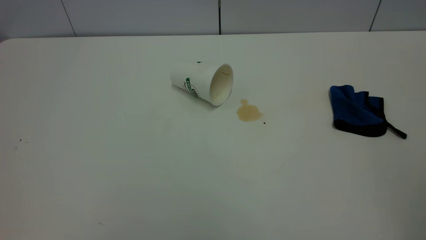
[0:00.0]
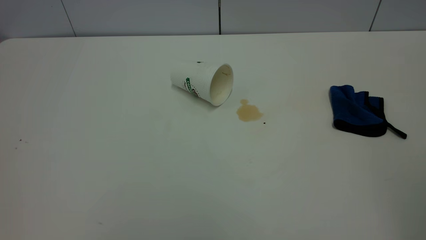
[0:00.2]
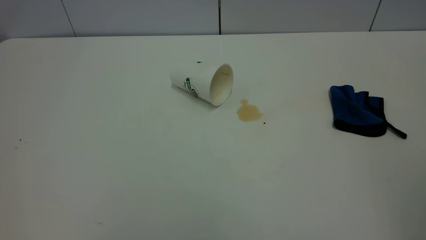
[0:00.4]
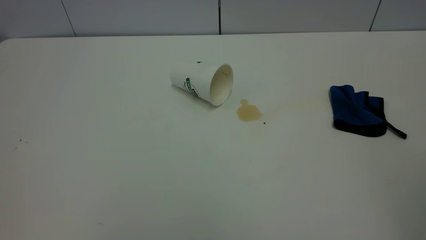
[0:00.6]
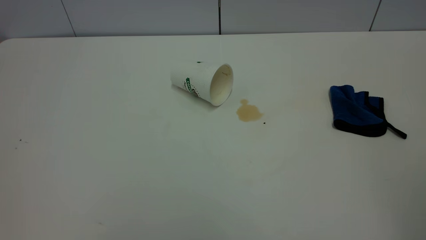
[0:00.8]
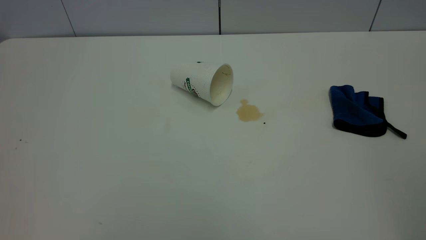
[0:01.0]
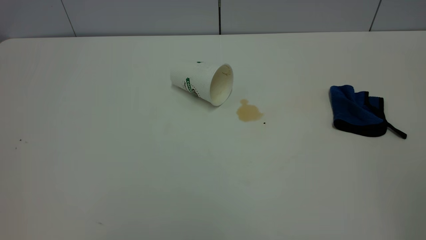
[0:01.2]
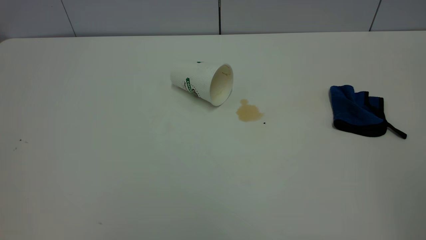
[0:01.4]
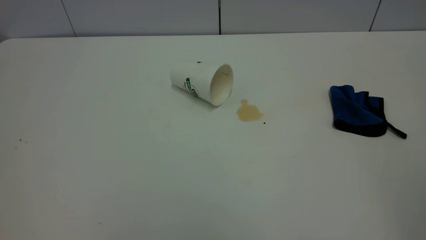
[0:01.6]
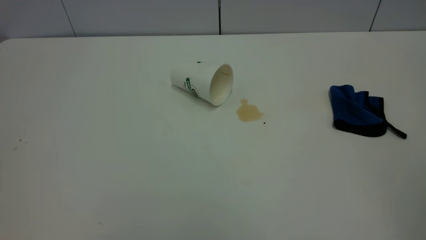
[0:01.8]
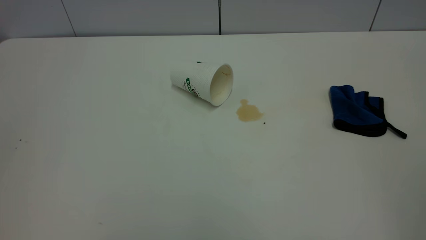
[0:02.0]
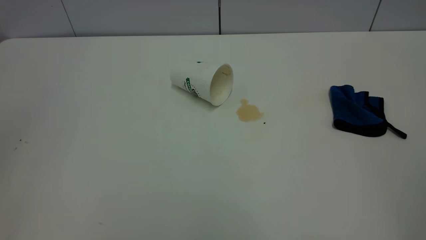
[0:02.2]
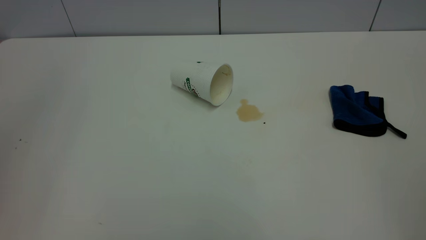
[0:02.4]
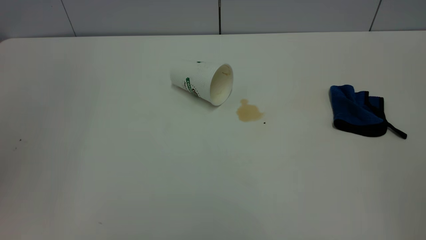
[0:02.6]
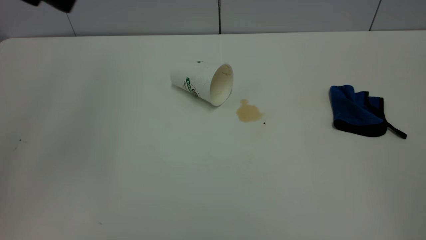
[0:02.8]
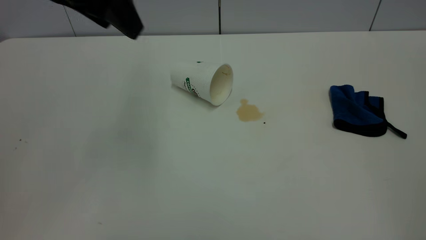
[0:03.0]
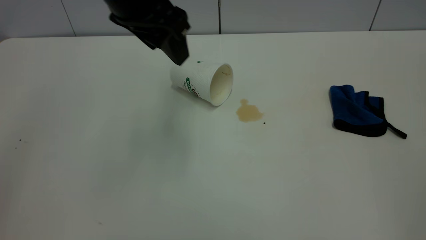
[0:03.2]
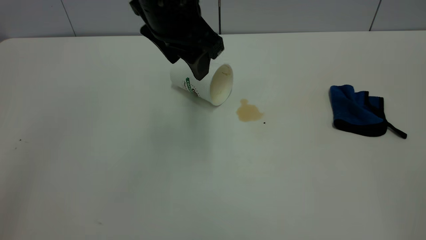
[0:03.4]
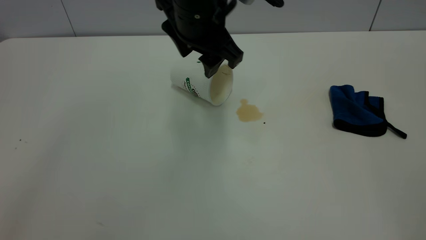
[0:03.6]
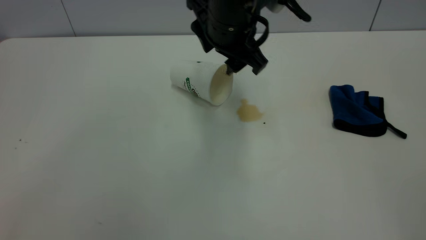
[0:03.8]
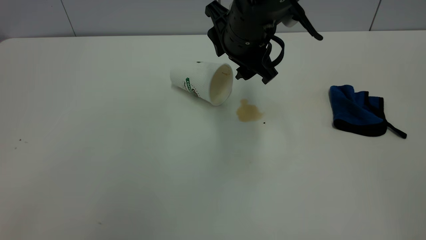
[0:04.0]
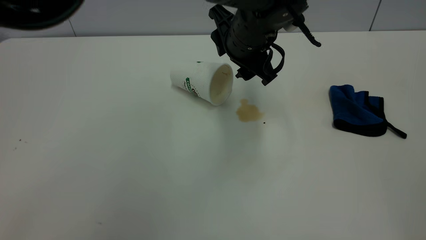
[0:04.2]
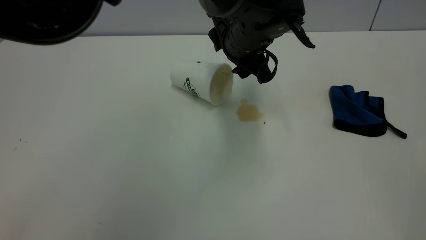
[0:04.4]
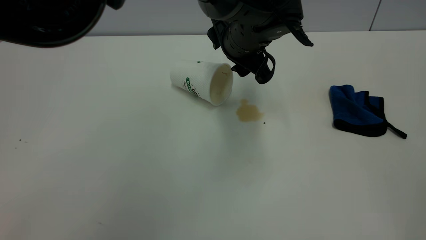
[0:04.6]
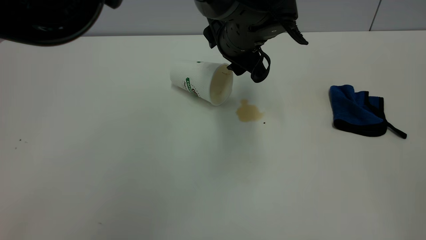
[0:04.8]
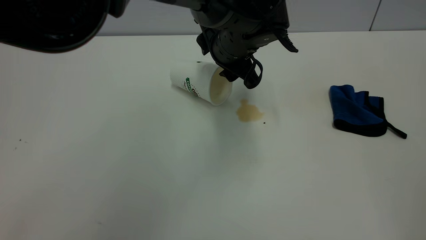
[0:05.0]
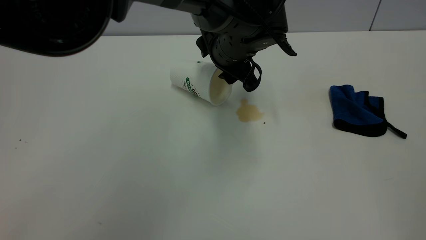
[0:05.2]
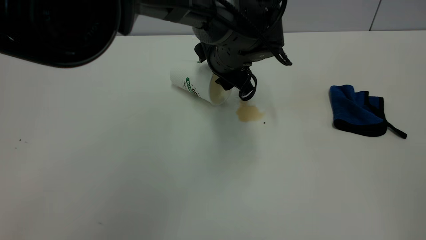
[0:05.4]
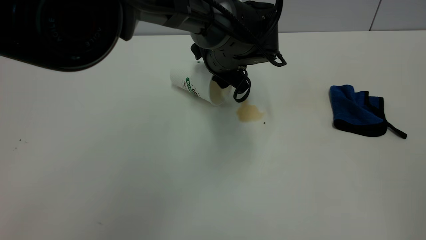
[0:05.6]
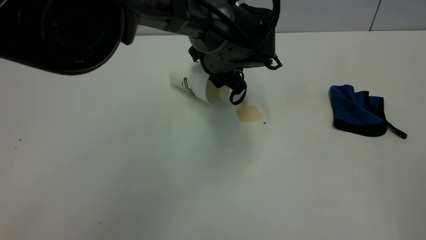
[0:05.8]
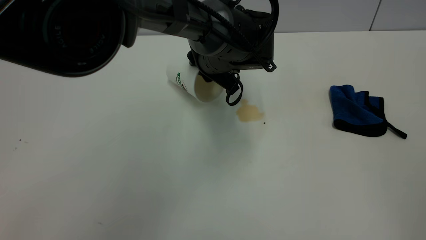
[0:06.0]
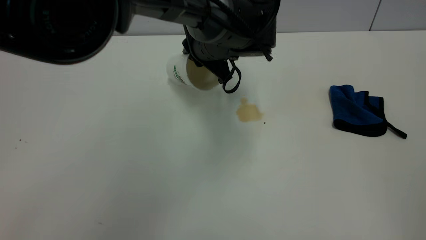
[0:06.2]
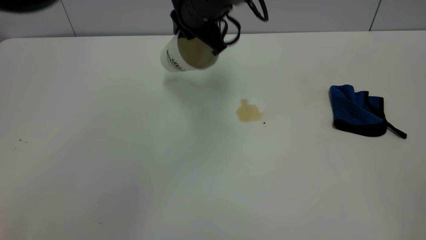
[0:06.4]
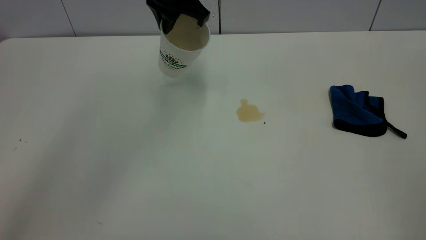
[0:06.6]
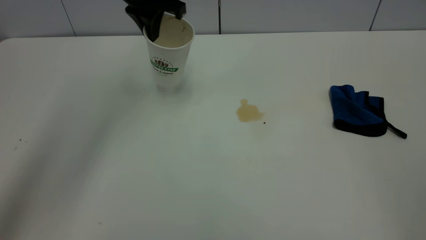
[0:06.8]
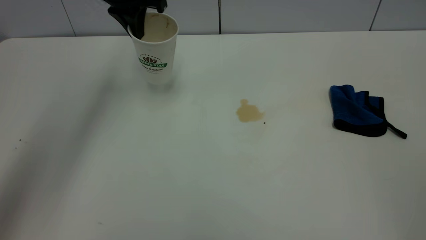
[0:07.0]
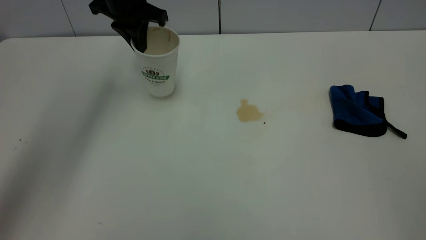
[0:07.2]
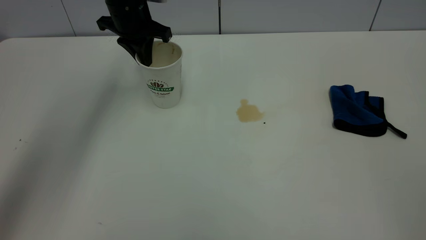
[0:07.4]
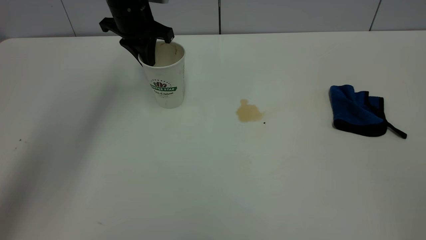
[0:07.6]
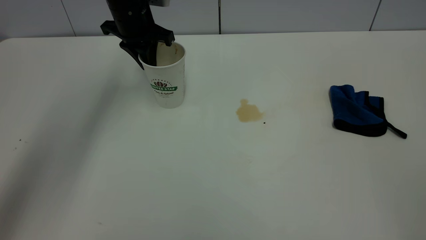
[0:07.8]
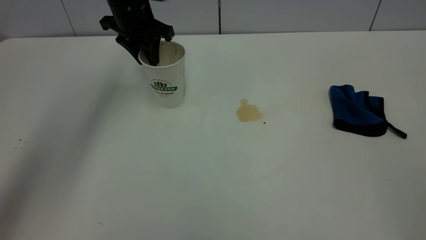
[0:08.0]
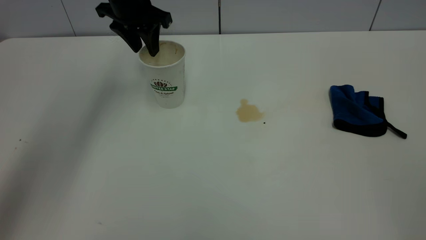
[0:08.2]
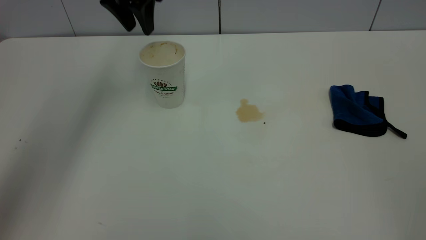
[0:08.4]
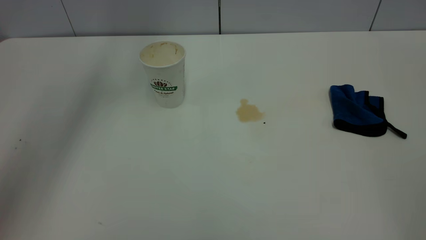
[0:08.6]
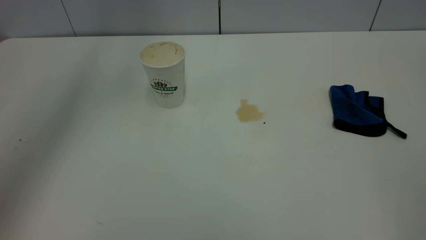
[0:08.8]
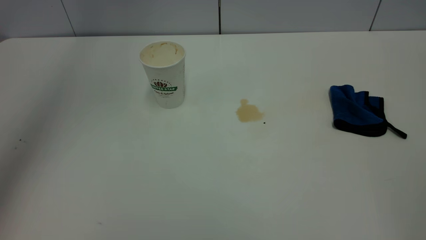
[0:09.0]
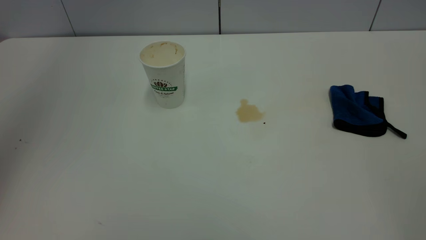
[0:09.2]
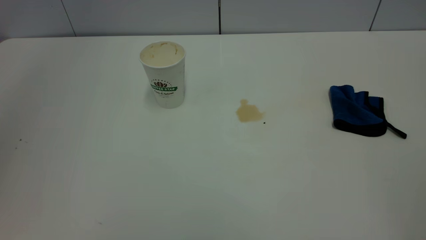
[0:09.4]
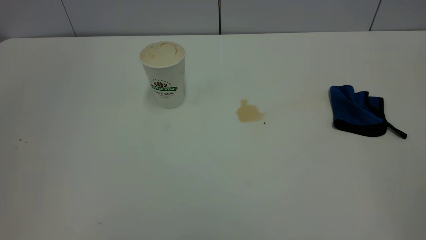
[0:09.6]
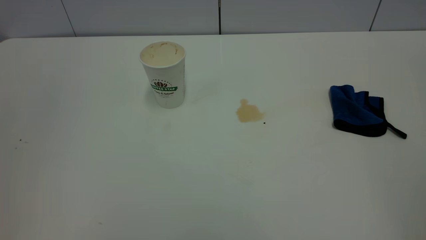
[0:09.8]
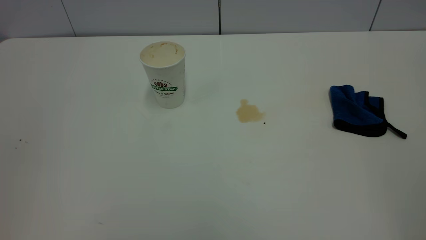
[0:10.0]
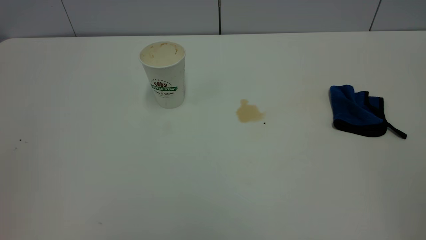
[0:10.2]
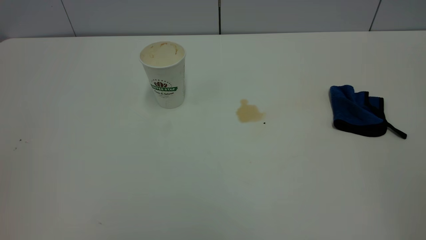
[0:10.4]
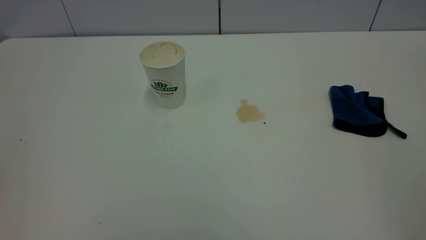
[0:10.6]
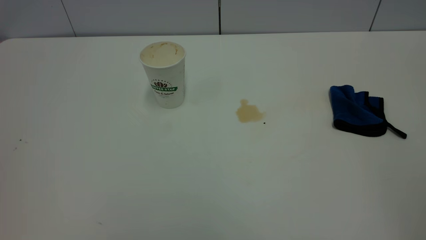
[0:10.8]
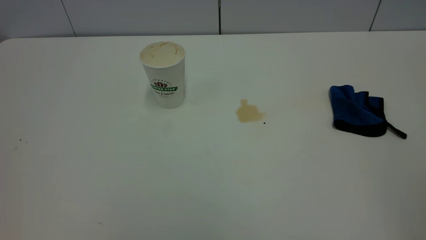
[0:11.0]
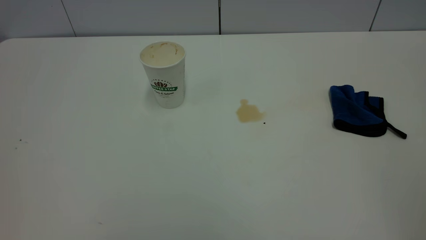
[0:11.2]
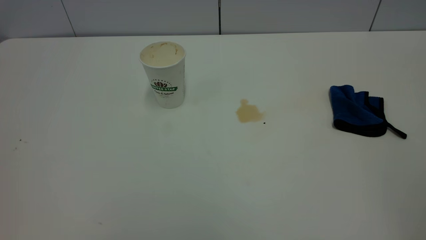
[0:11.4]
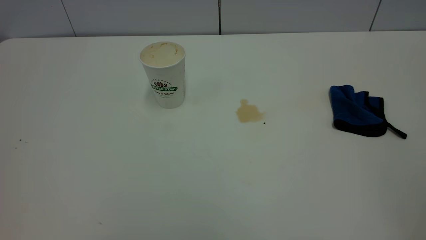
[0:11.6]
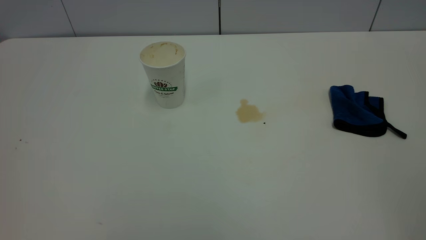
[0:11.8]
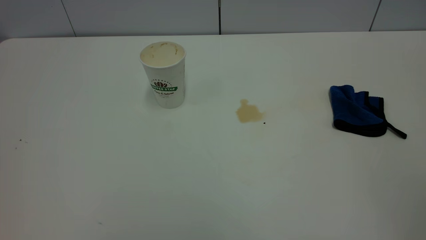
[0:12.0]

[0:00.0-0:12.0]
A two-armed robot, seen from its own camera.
Task of the whole recording: the left gripper pick up the fallen cup and place it upright, the right gripper grasp the blue rag and wipe the tea stain on the table, the right gripper put the blue rag back in its original position.
Step, 0:00.0 to 0:08.2: Stand the paper cup upright.
0:00.0 to 0:01.6: Both grippers stay about where they are.
0:01.6 to 0:03.0: The left gripper moves forward and to the right, roughly 35 cm.
0:03.0 to 0:04.4: The left gripper goes roughly 25 cm to the right and downward.
0:04.4 to 0:06.0: The left gripper moves downward, some 5 cm, and closes its fingers.
0:06.0 to 0:07.6: The left gripper shifts some 20 cm to the left and forward.
0:07.6 to 0:09.0: The left gripper heads upward, covering some 35 cm, and opens.
0:09.0 to 0:10.4: The left gripper goes approximately 40 cm backward and downward.

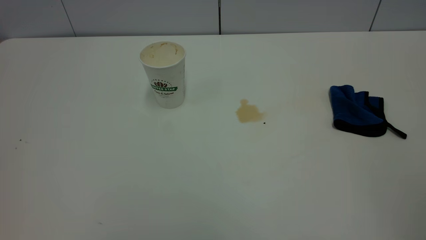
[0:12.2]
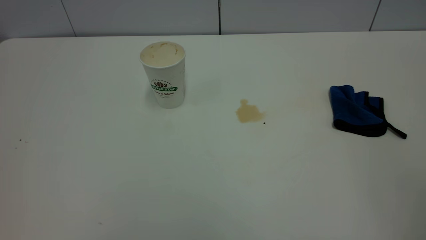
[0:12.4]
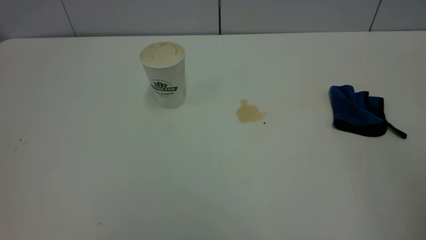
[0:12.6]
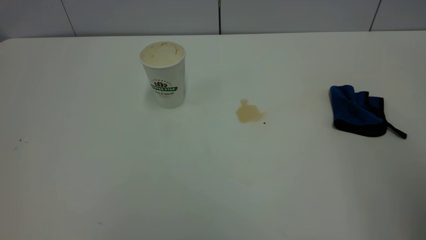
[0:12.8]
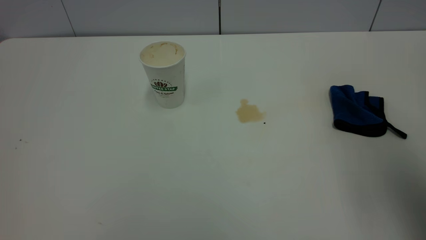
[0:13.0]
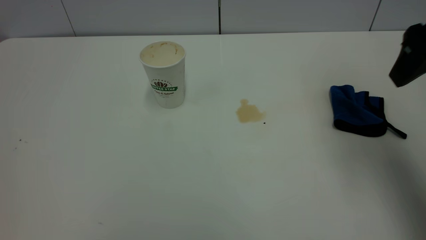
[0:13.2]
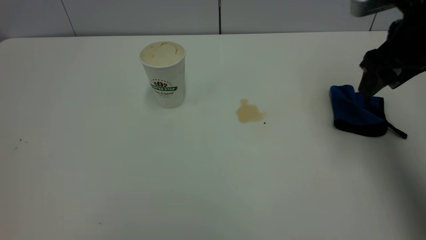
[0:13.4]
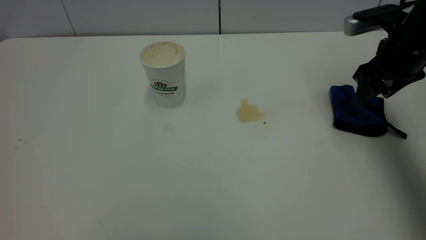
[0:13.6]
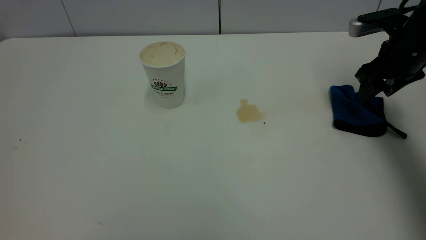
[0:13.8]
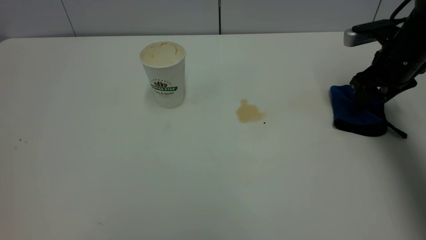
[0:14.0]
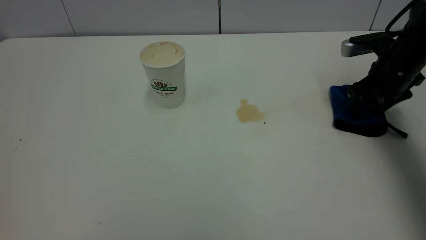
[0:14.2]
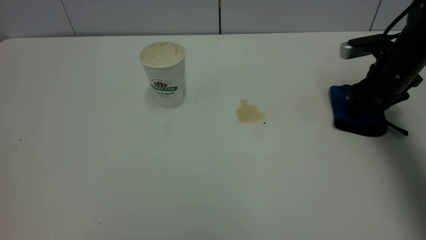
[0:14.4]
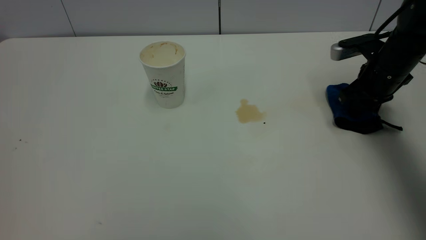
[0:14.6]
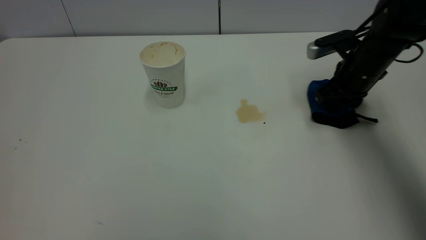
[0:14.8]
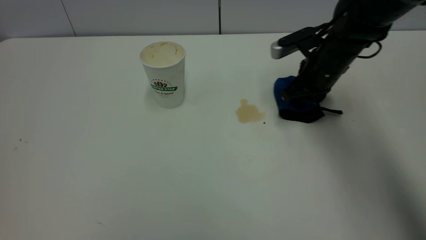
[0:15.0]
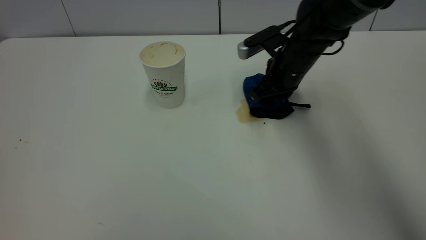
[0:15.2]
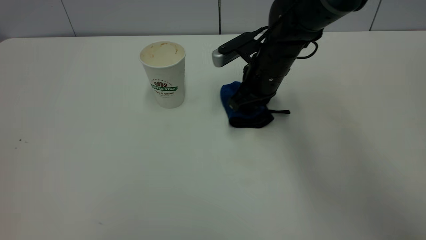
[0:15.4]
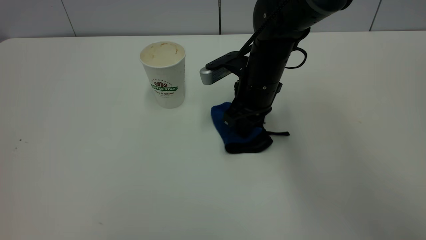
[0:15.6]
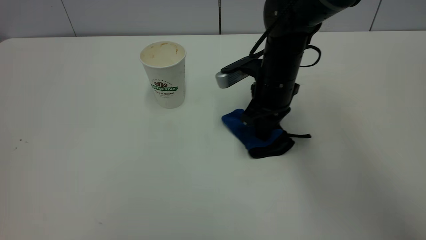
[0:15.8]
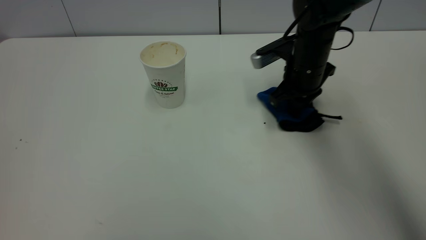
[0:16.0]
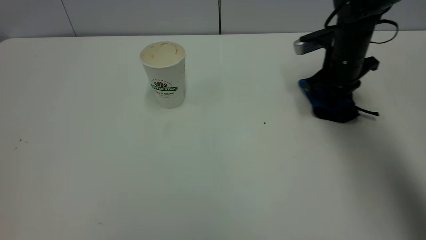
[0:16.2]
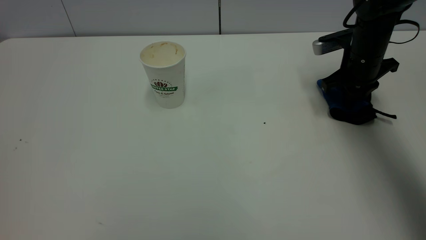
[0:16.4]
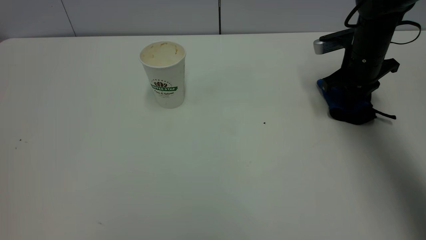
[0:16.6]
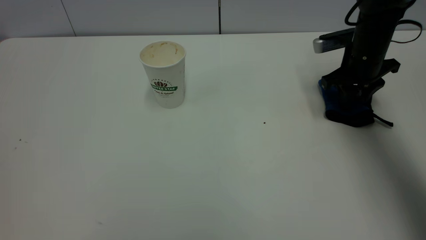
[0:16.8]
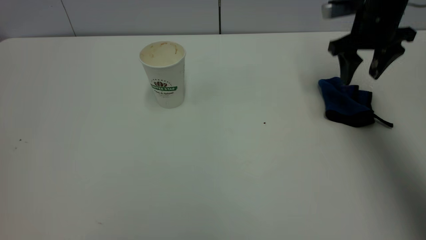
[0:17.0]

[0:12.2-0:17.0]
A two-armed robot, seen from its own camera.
Task of the whole recording: the left gripper pick up the fallen cup and place it upright, the right gripper grasp the blue rag and wipe the tea stain on the table, the right gripper put the blue rag back in its original position.
Step, 0:12.2 to 0:17.0: Wipe the stains off the table with a rag.
0:12.2 to 0:13.8: The right gripper heads forward and downward, covering roughly 50 cm.
0:13.8 to 0:15.4: The right gripper heads to the left, covering some 20 cm, and closes up.
0:15.4 to 0:17.0: The right gripper is displaced to the right and upward by roughly 20 cm, and opens.
